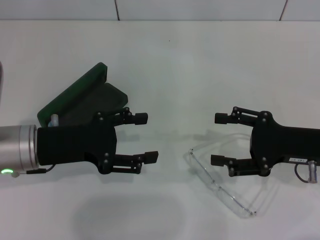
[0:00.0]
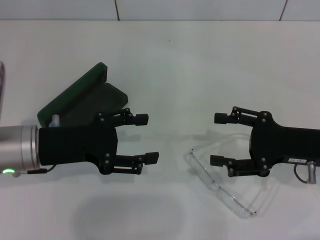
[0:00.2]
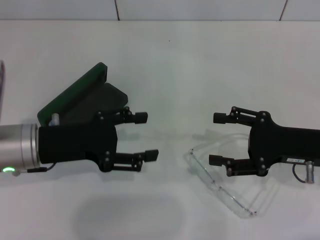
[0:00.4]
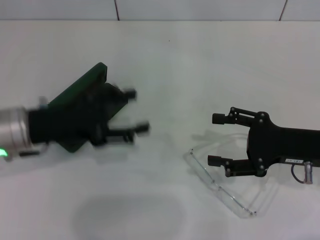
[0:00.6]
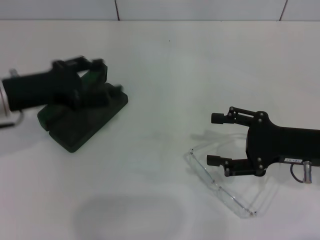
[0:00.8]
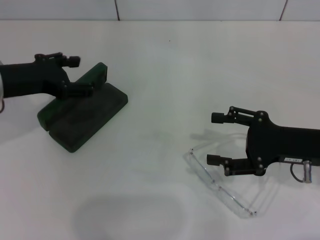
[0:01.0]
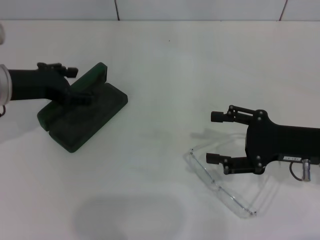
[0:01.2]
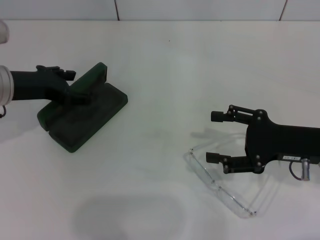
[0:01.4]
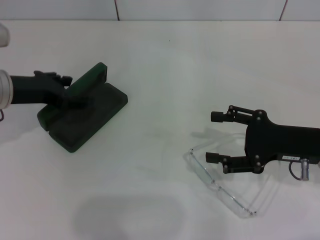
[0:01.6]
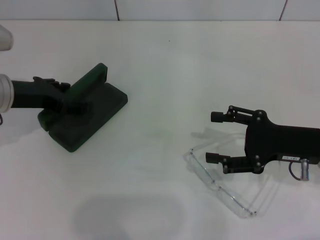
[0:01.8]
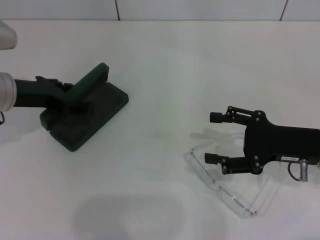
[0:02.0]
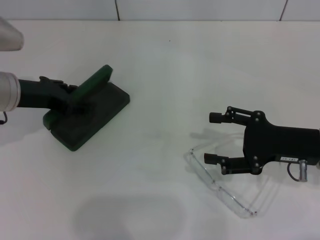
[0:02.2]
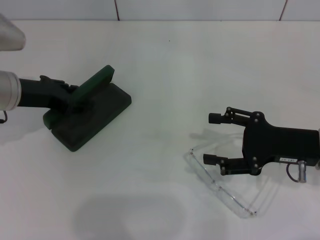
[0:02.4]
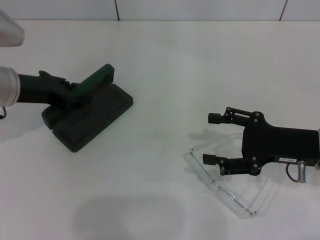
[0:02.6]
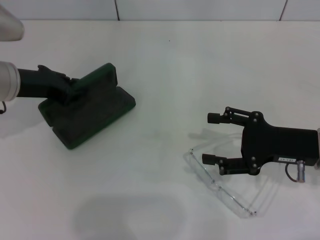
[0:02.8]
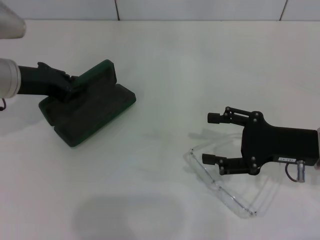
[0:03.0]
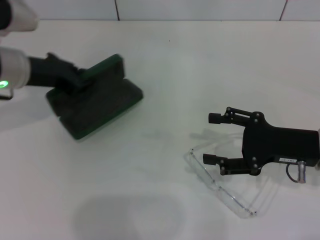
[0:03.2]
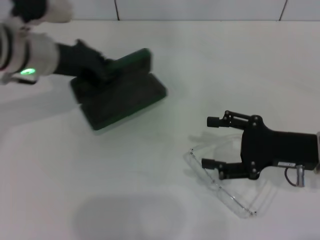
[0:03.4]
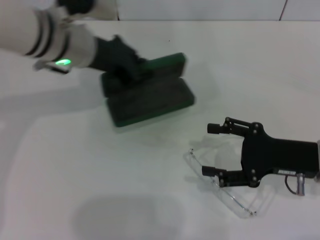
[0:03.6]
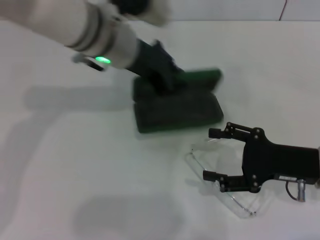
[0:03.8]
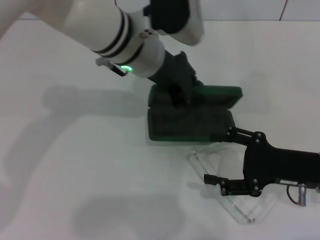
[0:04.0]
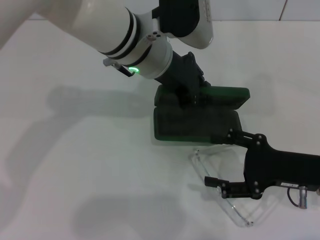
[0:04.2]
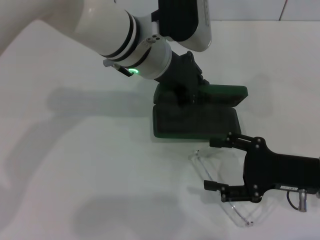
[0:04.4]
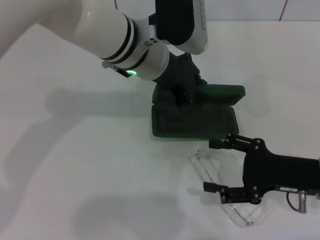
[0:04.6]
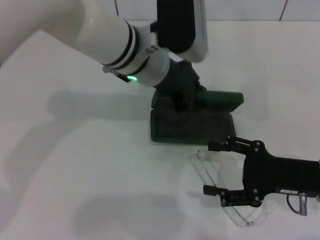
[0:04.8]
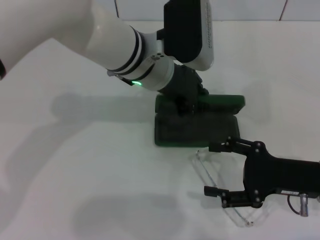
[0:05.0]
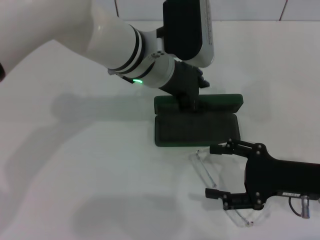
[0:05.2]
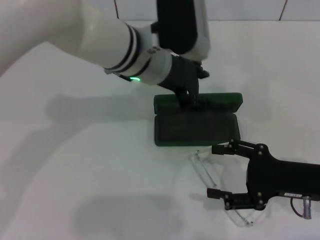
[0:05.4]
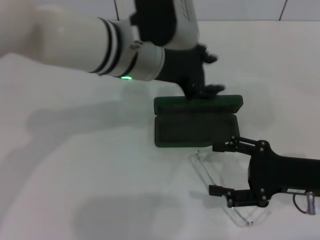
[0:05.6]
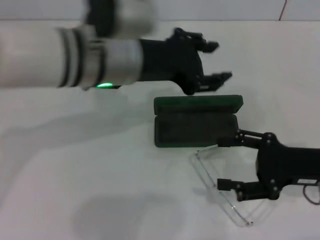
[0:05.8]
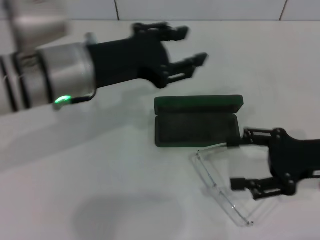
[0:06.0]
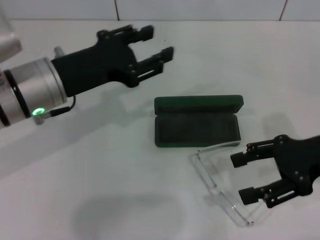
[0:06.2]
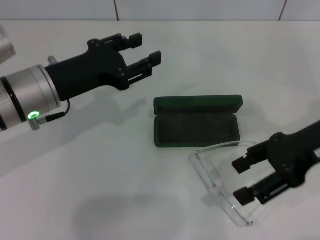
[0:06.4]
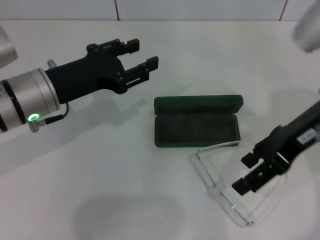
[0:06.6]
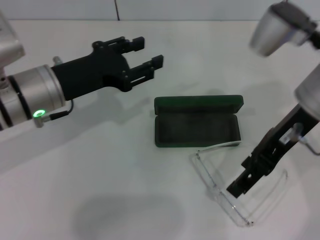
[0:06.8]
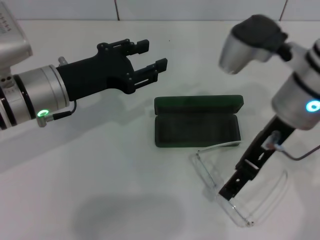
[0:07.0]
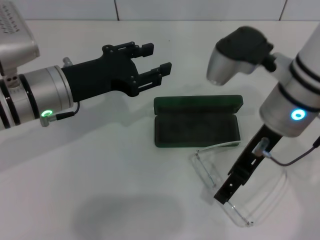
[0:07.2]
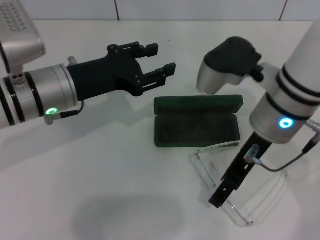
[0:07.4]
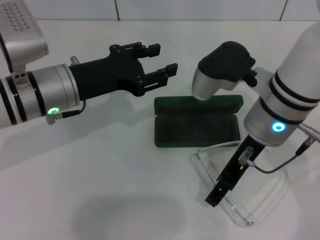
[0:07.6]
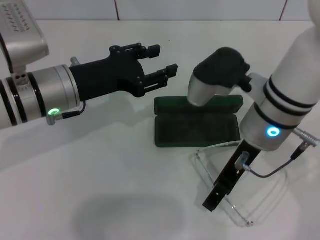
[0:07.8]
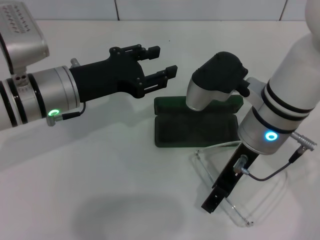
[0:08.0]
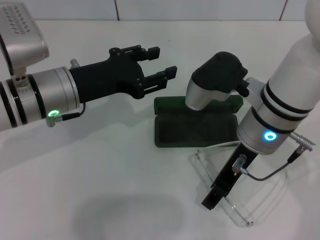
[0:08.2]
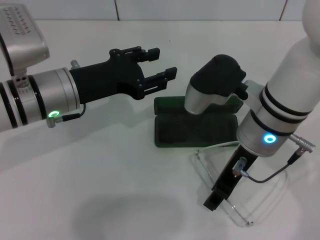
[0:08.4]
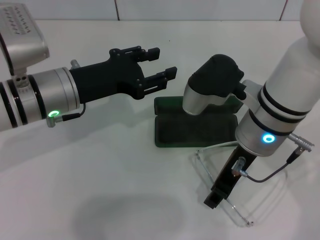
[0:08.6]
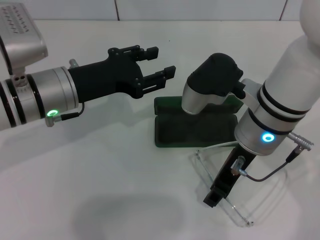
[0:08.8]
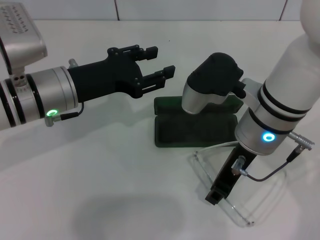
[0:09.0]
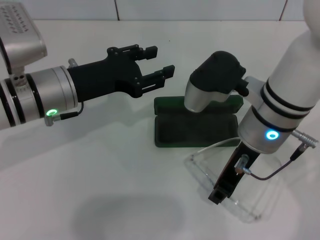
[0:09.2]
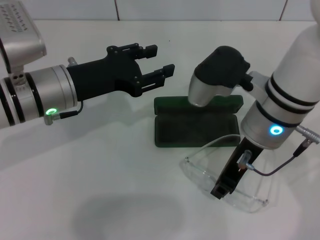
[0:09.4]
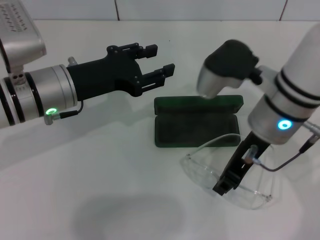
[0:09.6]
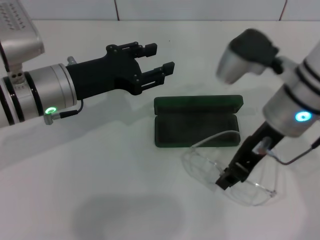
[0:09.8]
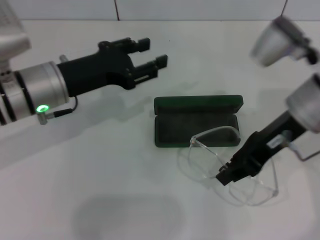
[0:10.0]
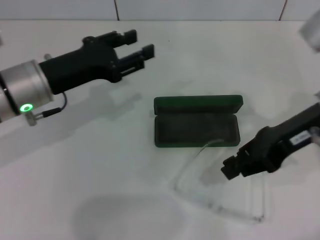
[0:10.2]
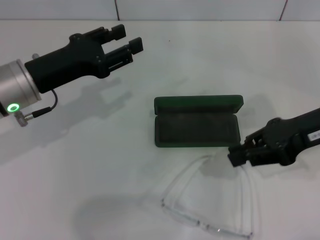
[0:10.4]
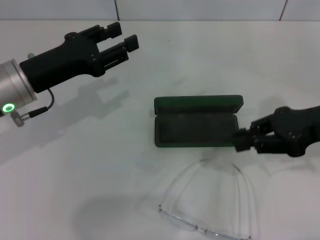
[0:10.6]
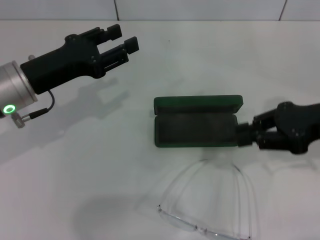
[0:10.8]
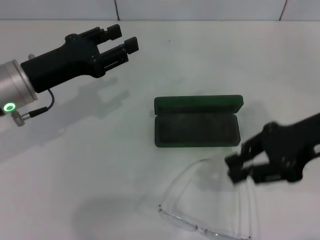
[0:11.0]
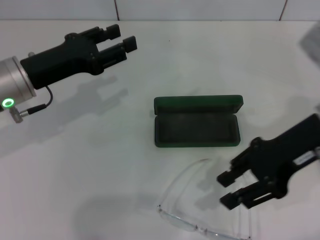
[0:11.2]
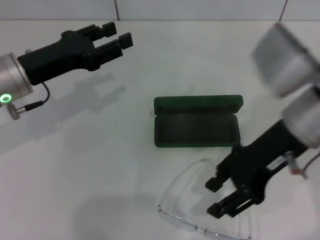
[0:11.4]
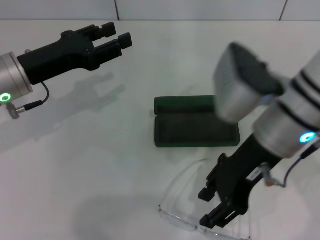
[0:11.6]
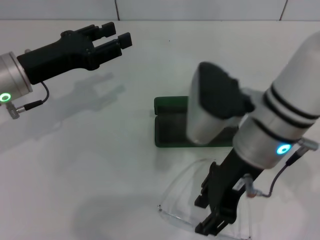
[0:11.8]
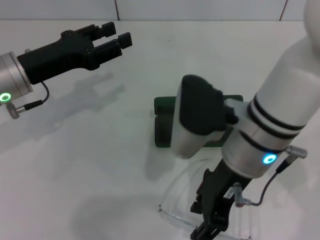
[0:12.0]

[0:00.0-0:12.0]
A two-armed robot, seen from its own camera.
Step, 0:00.0 to 0:02.2: Grab the glasses case with your left hand.
Step, 0:02.4 to 0:05.2: Place the glasses case in the center of the table with your left hand.
0:00.0 to 0:01.6: The left gripper shifts some 10 cm forward.
0:01.6 to 0:03.0: The left gripper closes.
0:03.0 to 0:04.4: The left gripper moves to the right, about 20 cm.
0:04.4 to 0:06.0: The right gripper shifts by approximately 5 cm. Meanwhile the left gripper goes some 15 cm to the left and backward, and opens up.
0:06.0 to 0:07.6: The left gripper travels downward by about 5 cm. The right gripper heads to the left, covering roughly 15 cm.
0:07.6 to 0:09.0: The right gripper closes.
0:09.0 to 0:10.4: The right gripper goes roughly 15 cm to the right.
0:10.4 to 0:12.0: The right gripper heads to the left, covering roughly 15 cm, and opens up.

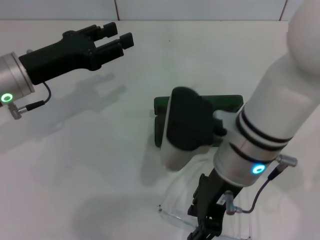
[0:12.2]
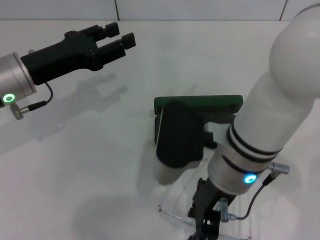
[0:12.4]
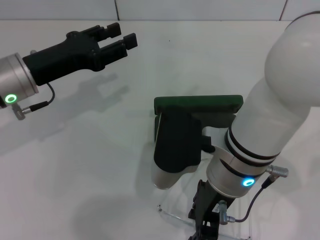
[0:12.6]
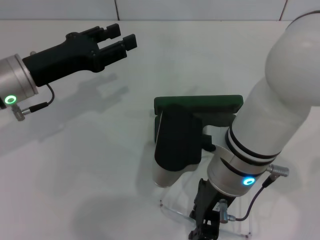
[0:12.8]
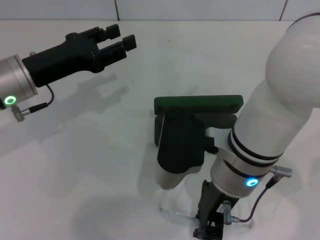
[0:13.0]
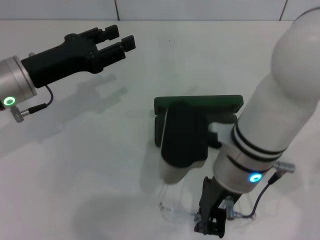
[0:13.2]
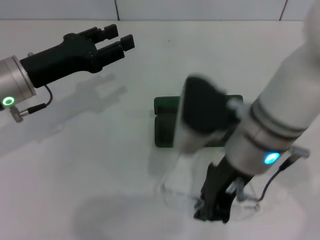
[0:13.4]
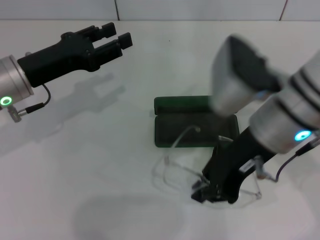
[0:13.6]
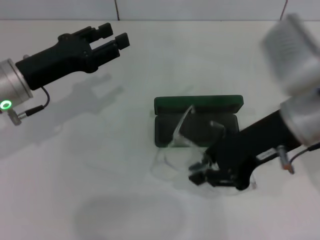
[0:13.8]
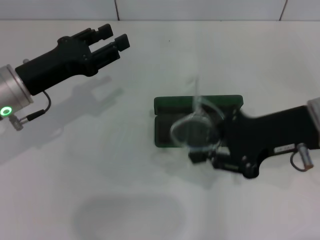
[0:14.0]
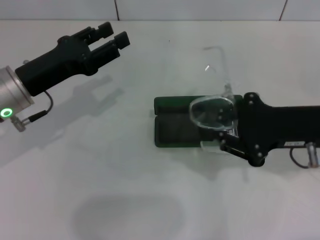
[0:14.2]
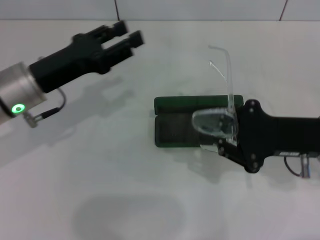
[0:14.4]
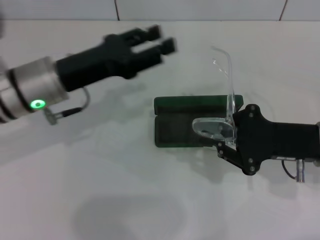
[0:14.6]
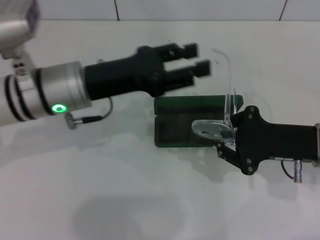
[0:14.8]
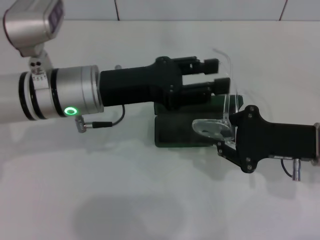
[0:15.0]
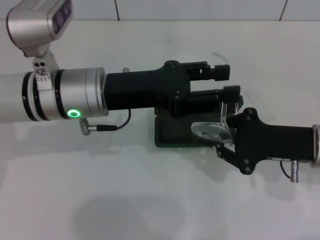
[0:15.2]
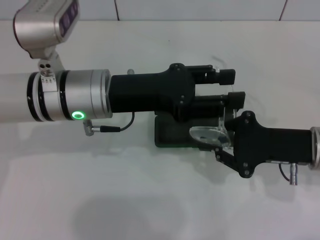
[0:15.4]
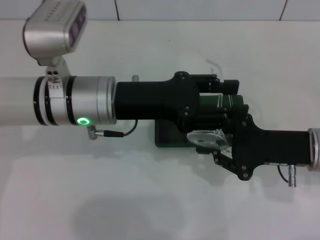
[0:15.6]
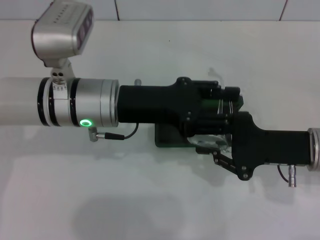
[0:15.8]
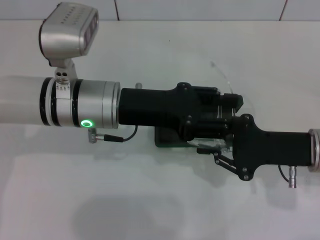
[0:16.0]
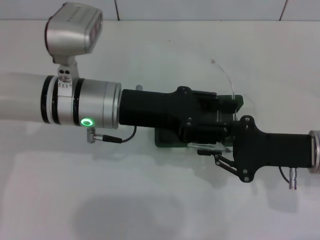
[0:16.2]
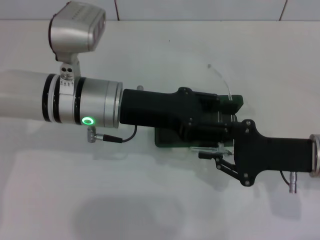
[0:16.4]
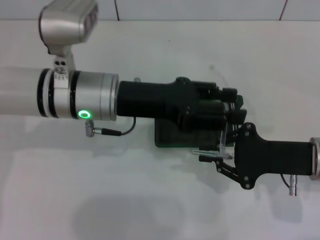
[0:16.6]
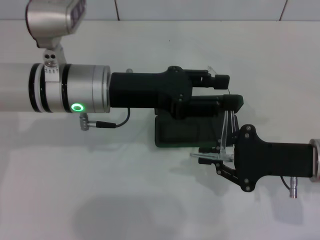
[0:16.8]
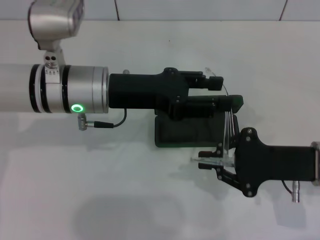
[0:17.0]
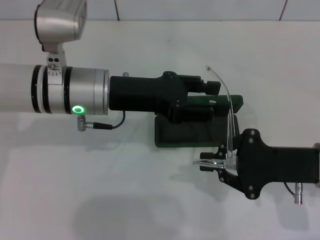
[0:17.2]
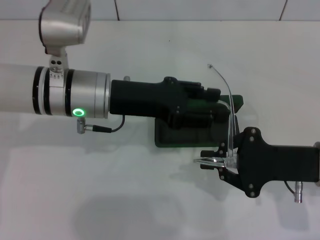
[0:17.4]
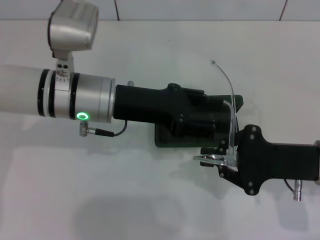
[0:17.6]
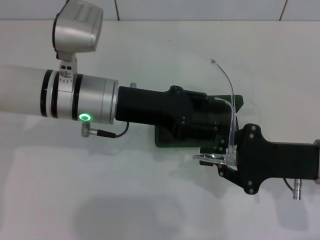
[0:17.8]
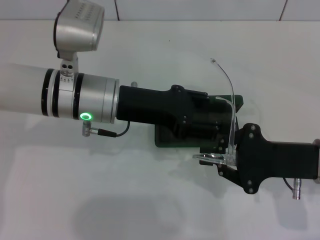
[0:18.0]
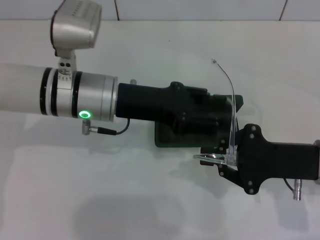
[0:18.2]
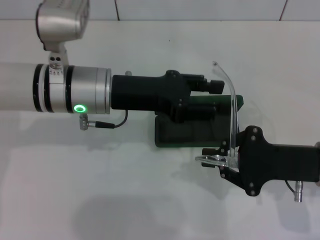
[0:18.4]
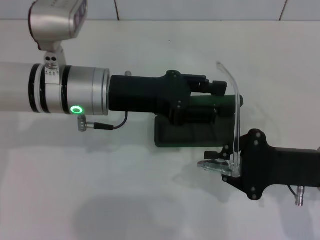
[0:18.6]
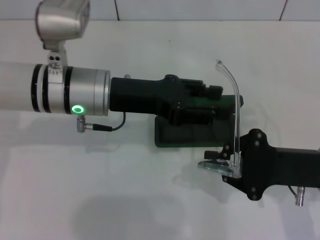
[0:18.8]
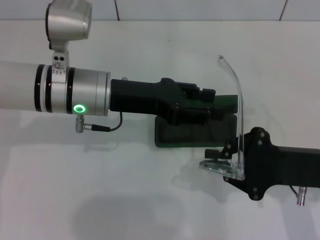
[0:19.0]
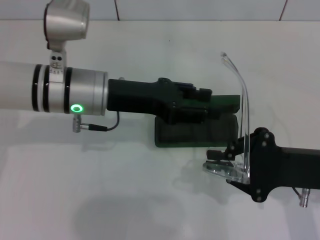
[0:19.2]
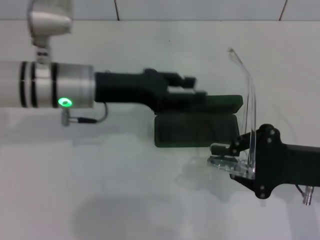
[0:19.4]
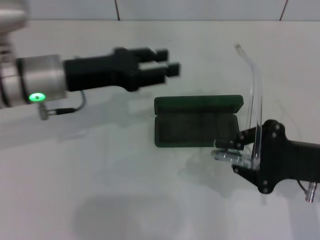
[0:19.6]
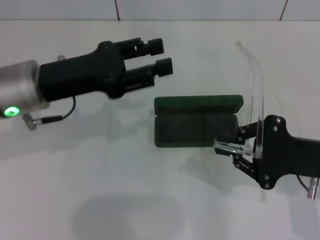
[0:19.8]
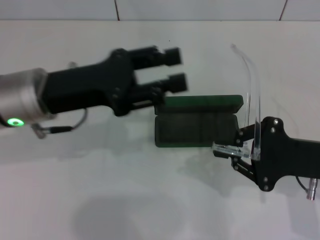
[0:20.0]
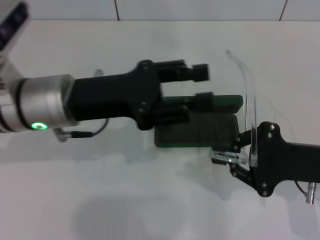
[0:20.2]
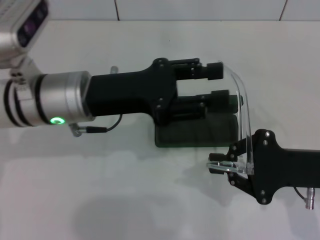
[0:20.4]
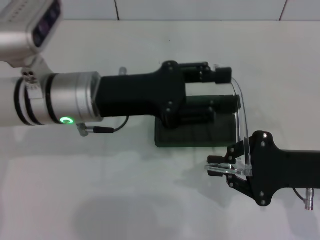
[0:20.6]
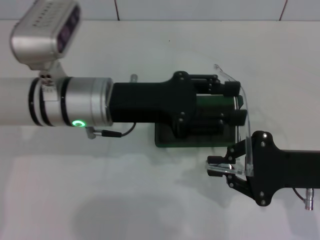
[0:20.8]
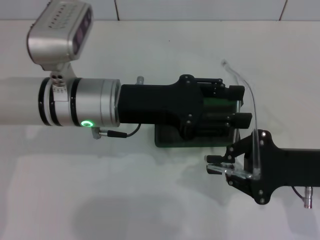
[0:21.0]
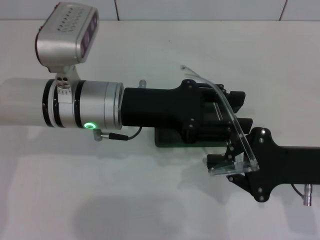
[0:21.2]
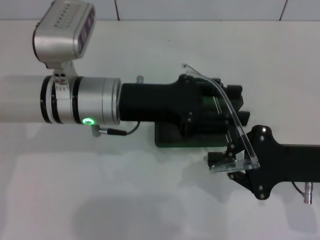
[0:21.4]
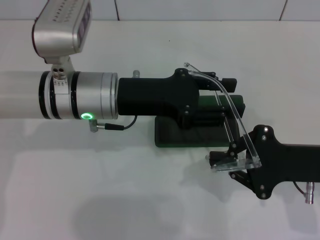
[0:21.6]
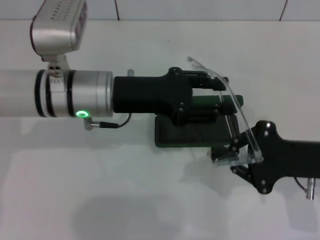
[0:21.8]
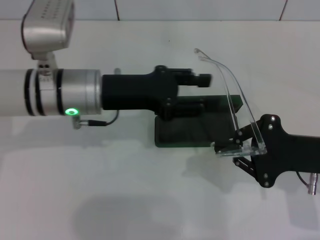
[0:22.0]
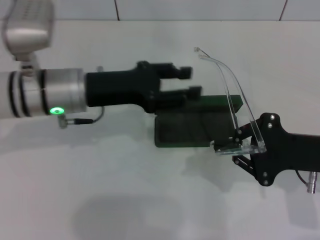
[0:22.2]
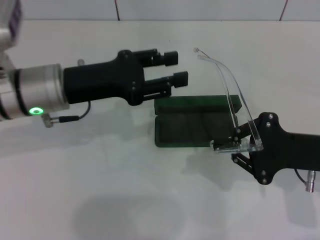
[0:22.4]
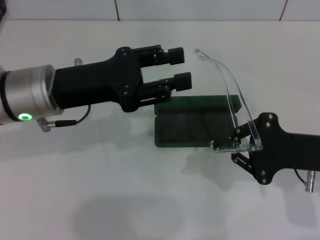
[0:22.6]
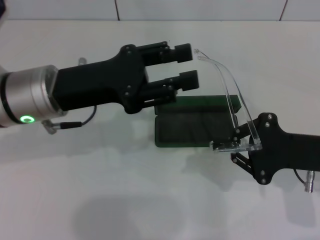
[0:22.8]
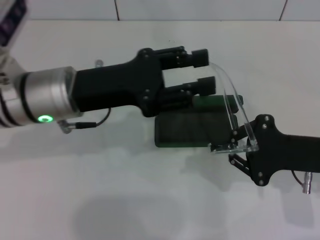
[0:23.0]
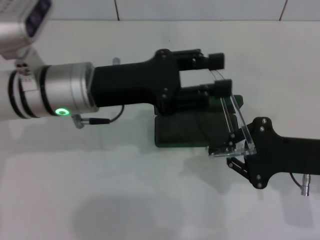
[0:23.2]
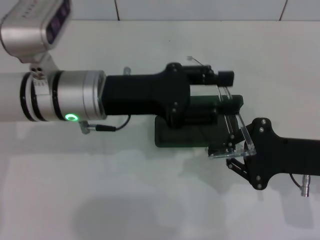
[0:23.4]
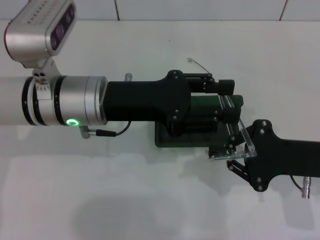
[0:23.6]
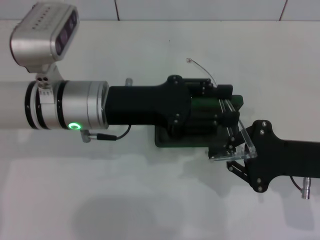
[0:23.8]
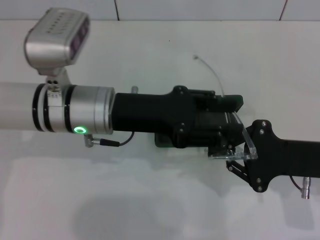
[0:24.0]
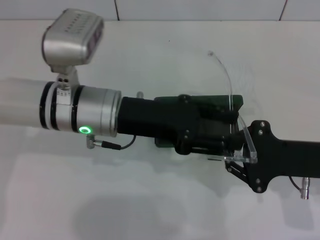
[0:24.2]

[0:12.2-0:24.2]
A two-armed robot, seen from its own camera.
0:12.2 to 0:13.8: The right gripper is displaced to the right by roughly 10 cm, and closes up.
0:13.8 to 0:15.2: The right gripper goes about 10 cm downward and to the right; the left gripper moves to the right, about 10 cm.
0:16.6 to 0:18.2: The grippers move only a little.
0:18.2 to 0:19.8: The left gripper travels to the left by some 10 cm.
0:19.8 to 0:21.2: The left gripper shifts approximately 10 cm to the right.
0:21.2 to 0:22.6: The left gripper goes about 5 cm to the left.
0:22.6 to 0:24.2: The left gripper heads to the right, covering about 5 cm.
